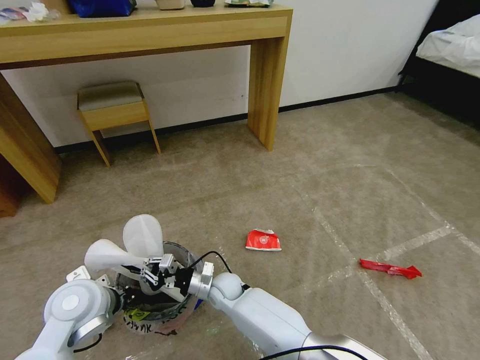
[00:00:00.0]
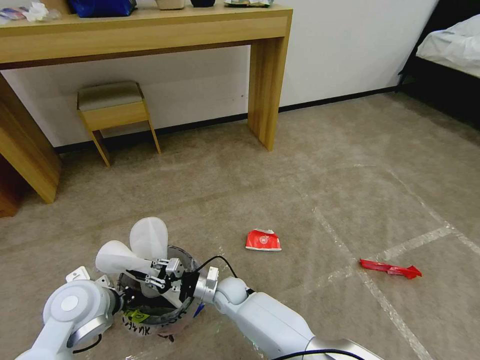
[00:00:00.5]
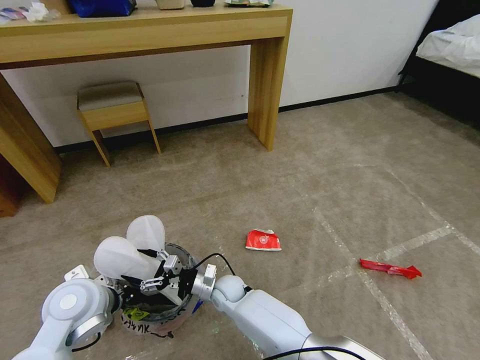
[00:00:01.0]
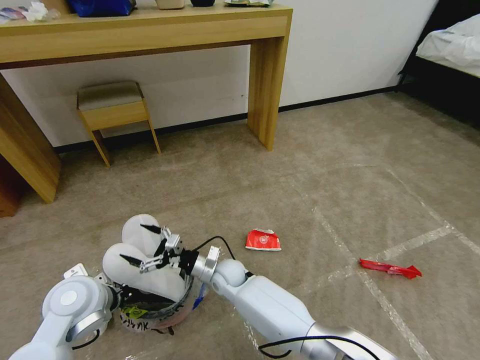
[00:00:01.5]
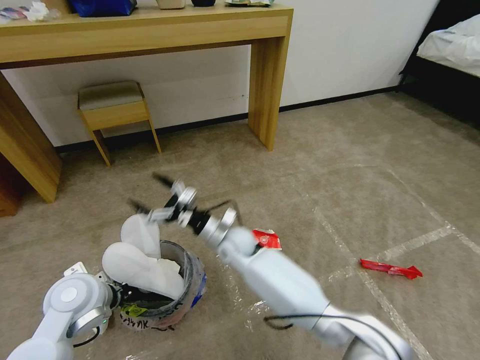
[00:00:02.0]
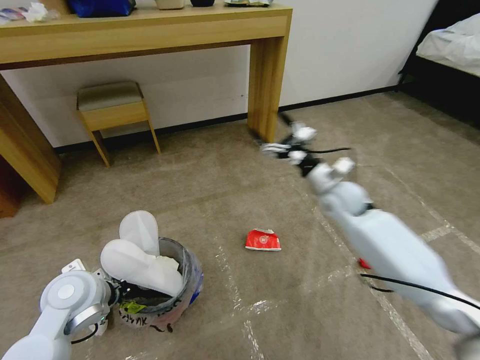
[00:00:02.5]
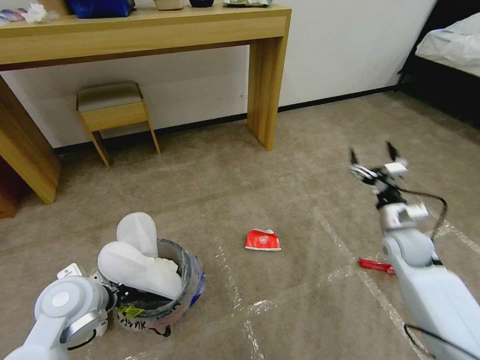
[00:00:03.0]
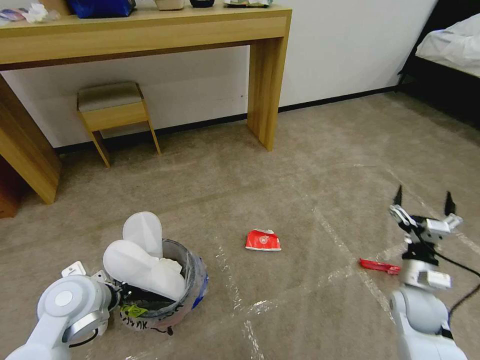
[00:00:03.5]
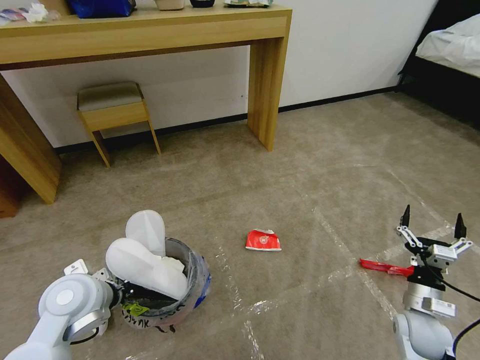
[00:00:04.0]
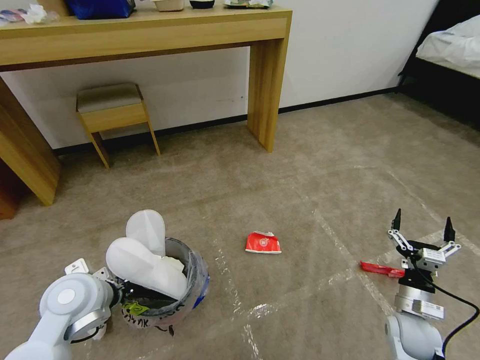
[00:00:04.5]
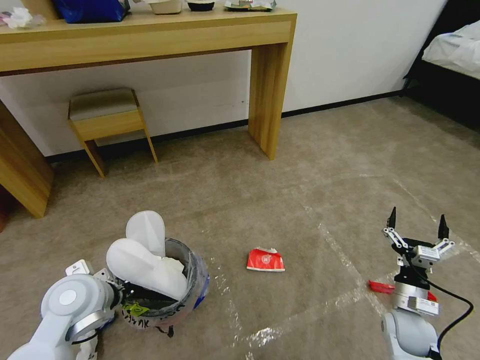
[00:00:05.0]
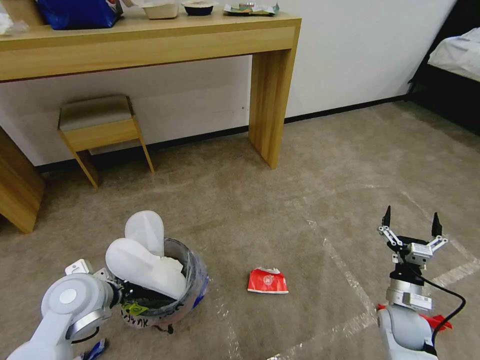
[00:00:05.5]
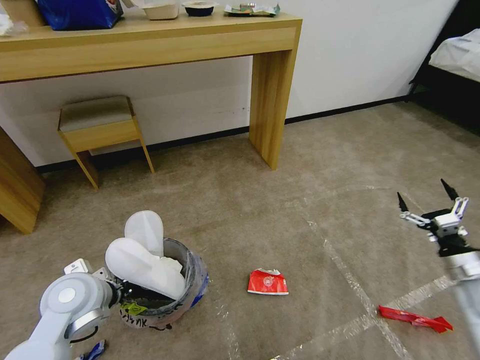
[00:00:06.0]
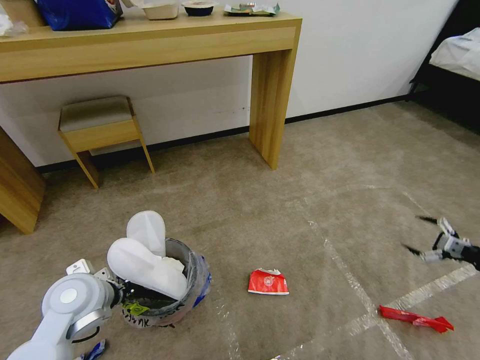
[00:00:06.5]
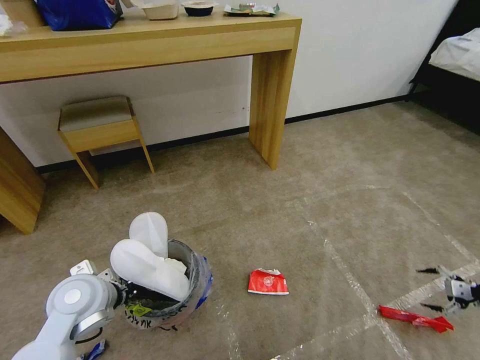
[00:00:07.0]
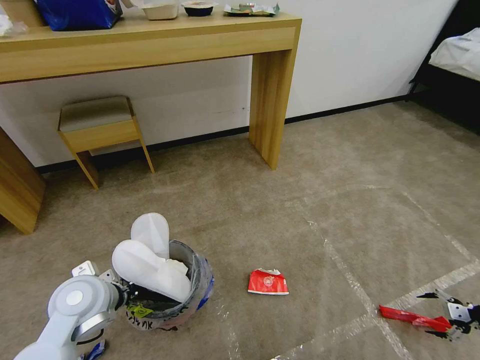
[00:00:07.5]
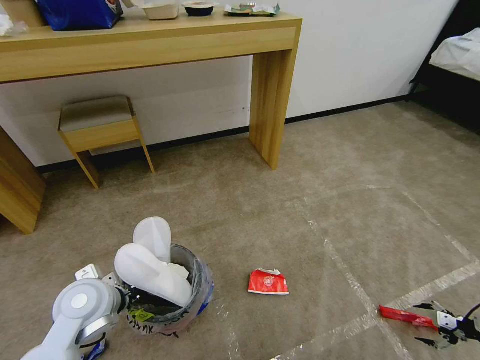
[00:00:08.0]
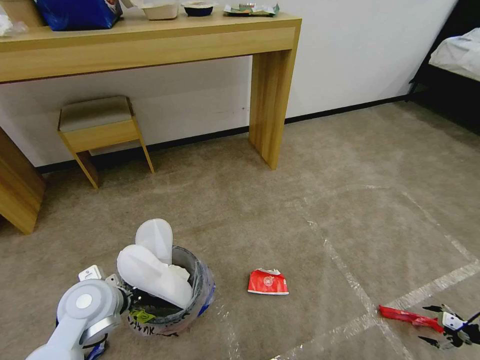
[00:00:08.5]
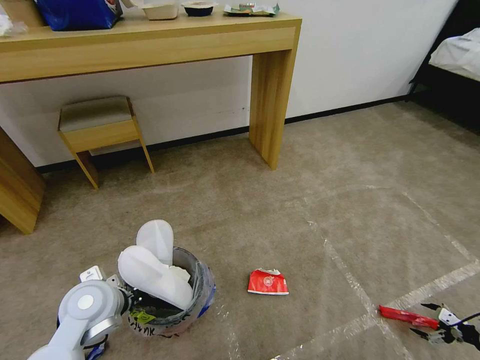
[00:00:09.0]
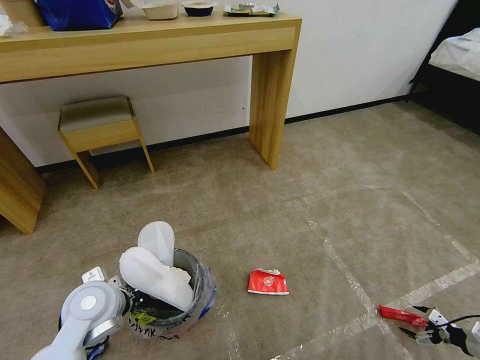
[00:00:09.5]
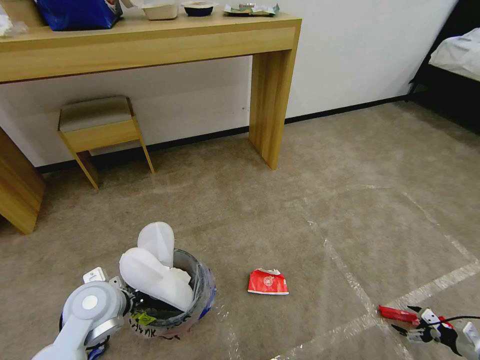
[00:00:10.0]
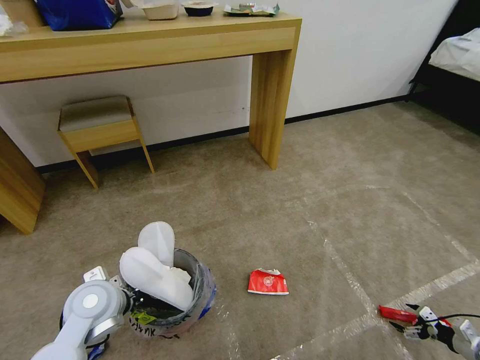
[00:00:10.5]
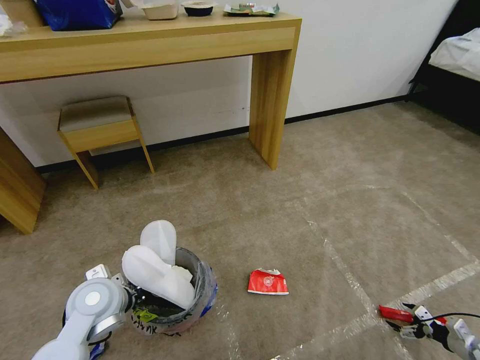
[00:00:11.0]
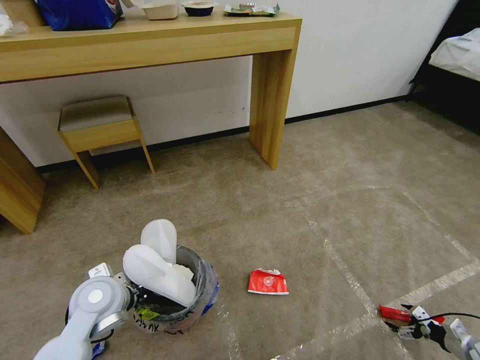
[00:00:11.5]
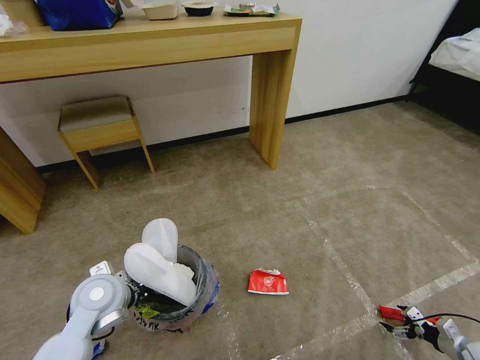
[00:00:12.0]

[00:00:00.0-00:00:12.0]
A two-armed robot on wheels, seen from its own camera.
Task of the whole recording: Pick up the trash bin and place the garbage on the floor into it.
00:00:00.0 to 00:00:02.0: The right gripper heads upward and forward, covering approximately 15 cm, and opens.
00:00:02.0 to 00:00:04.0: The right gripper shifts about 50 cm to the right and backward.
00:00:04.0 to 00:00:06.0: The right gripper travels to the right by about 15 cm.
00:00:06.0 to 00:00:08.0: The right gripper is displaced to the right and downward by about 20 cm.
00:00:08.0 to 00:00:10.0: The right gripper is displaced downward by roughly 10 cm.
00:00:10.0 to 00:00:12.0: The grippers move only a little.

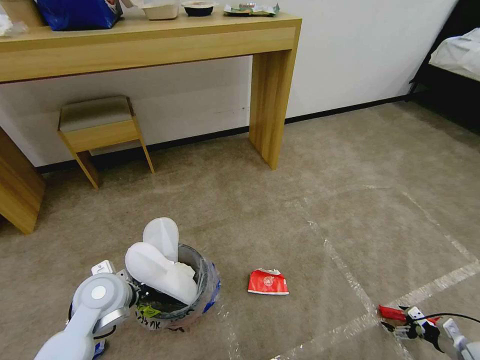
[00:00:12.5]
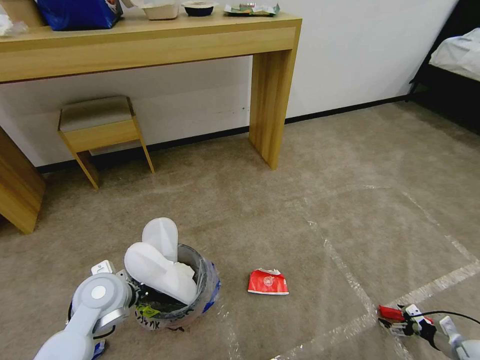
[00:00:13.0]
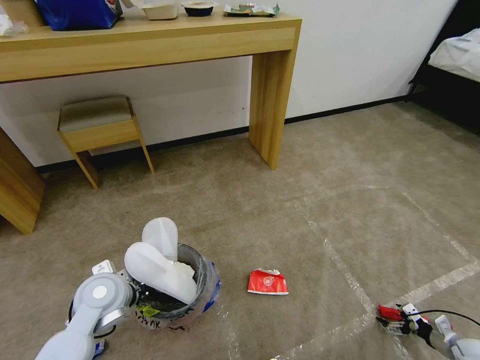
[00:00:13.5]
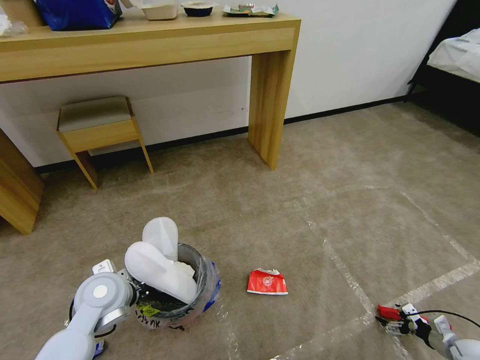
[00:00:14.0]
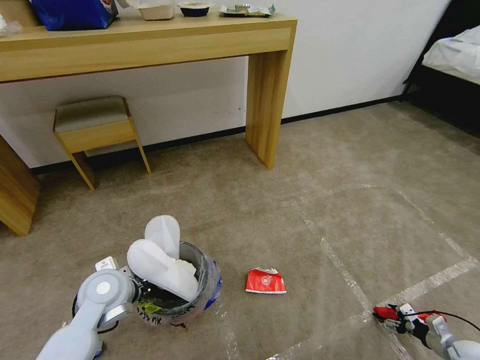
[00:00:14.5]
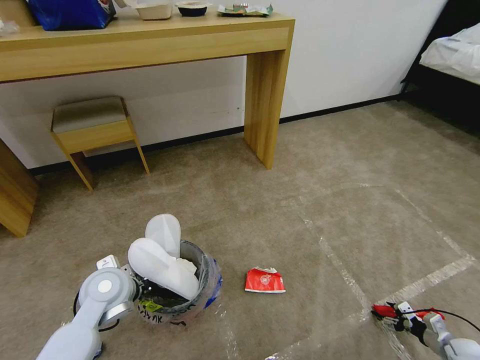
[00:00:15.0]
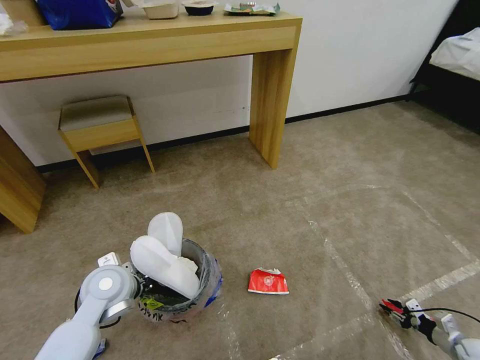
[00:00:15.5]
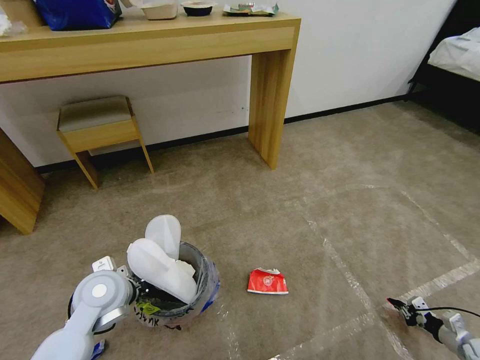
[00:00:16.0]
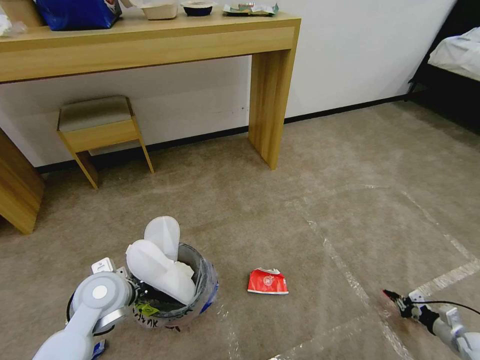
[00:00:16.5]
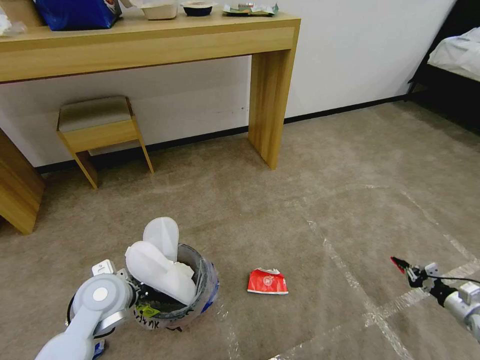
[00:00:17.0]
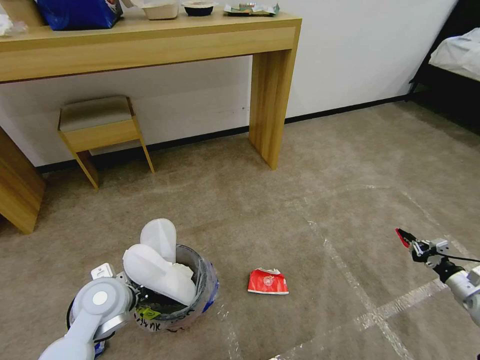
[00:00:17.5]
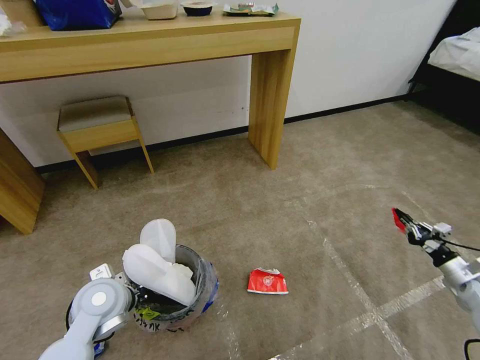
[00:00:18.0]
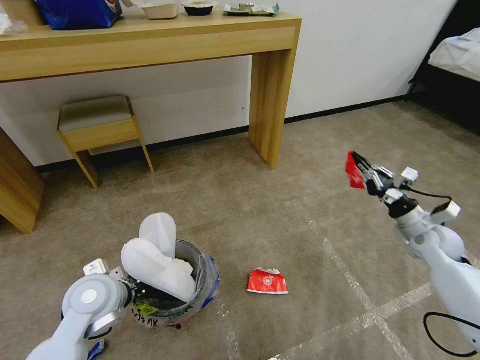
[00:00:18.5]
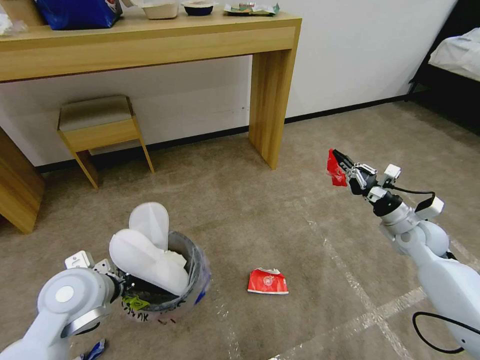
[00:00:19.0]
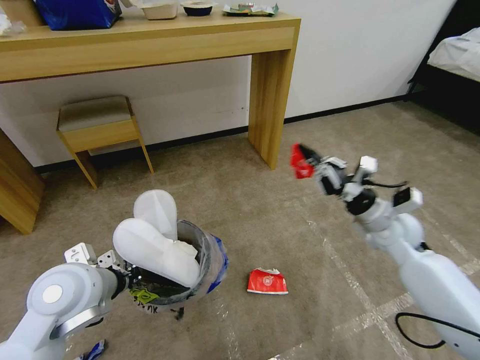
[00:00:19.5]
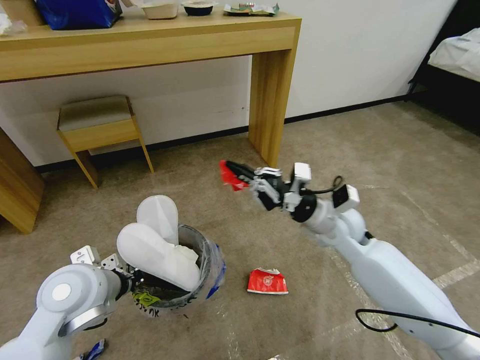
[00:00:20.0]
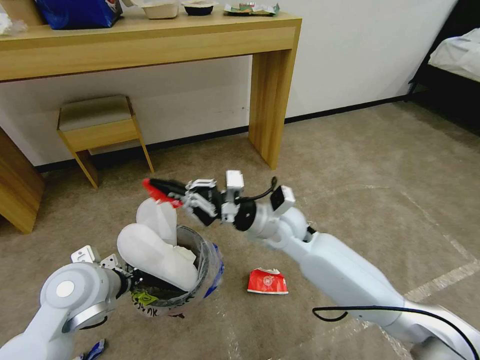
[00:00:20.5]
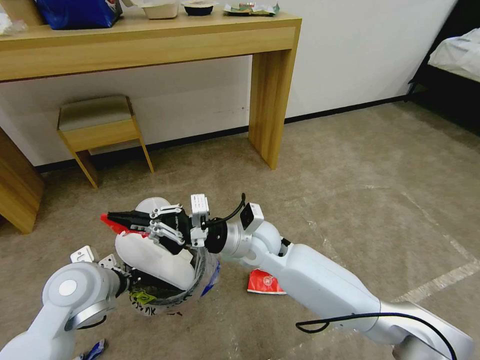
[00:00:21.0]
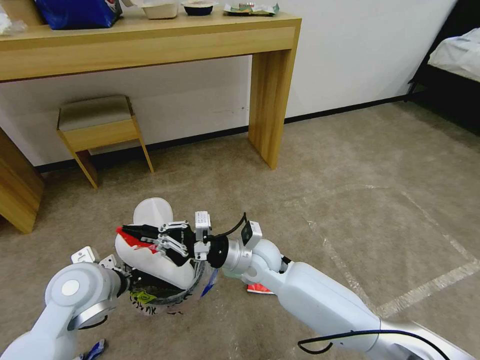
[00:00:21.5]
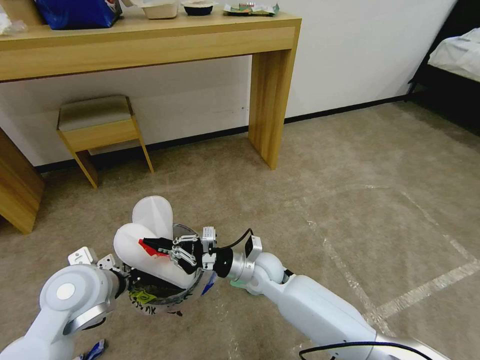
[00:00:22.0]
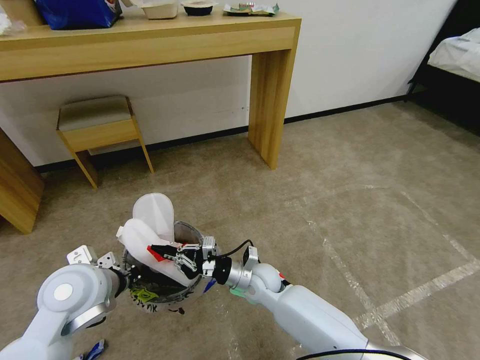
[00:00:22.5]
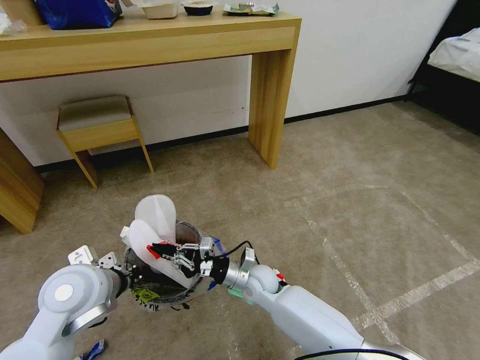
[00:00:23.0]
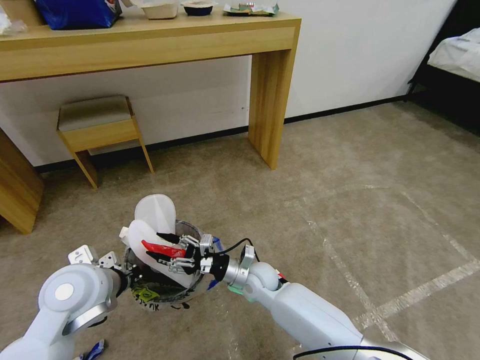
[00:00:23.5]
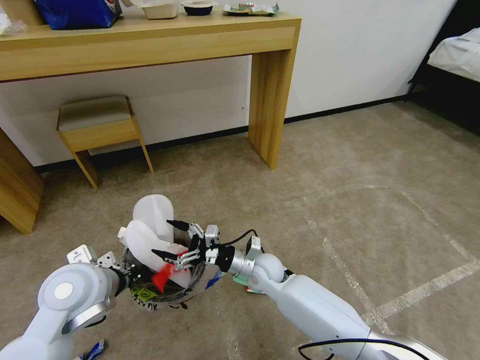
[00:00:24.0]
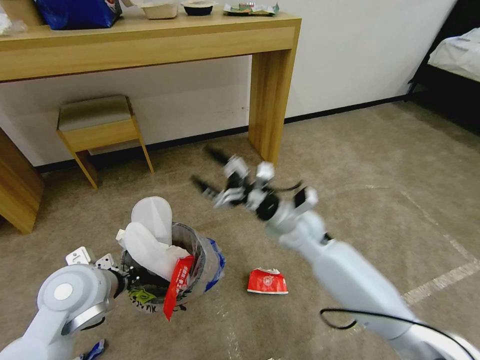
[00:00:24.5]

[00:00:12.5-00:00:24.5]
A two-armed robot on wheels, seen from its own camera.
Task of the whole recording: Pick up the trash bin and place the garbage on the floor into it.
00:00:12.5 to 00:00:14.5: The grippers move only a little.
00:00:14.5 to 00:00:16.5: The right gripper closes.
00:00:16.5 to 00:00:18.5: The right gripper travels upward, forward and to the left by about 35 cm.
00:00:18.5 to 00:00:20.5: The left gripper moves upward, about 5 cm; the right gripper moves to the left, approximately 40 cm.
00:00:20.5 to 00:00:22.5: The right gripper moves downward, some 20 cm.
00:00:22.5 to 00:00:24.5: The right gripper heads upward and to the right, covering roughly 15 cm, and opens its fingers.

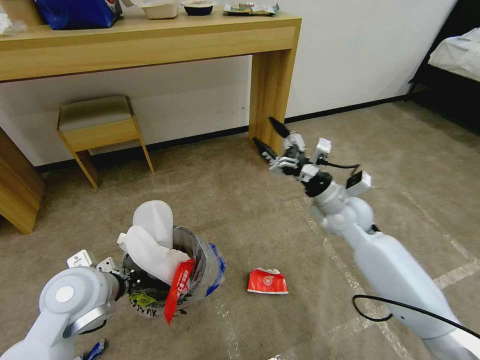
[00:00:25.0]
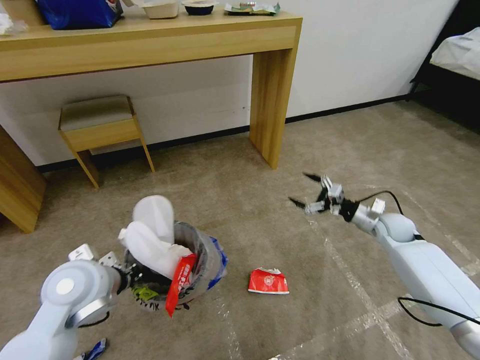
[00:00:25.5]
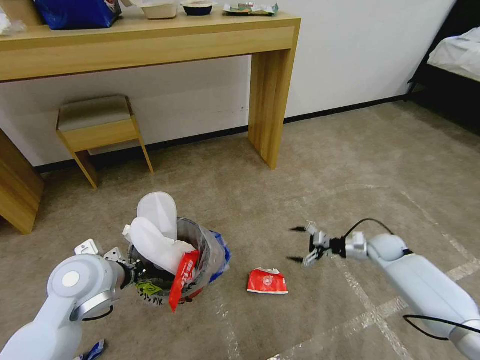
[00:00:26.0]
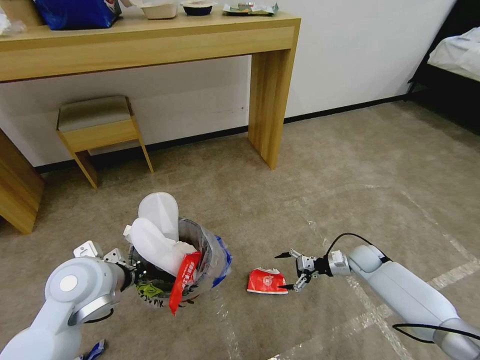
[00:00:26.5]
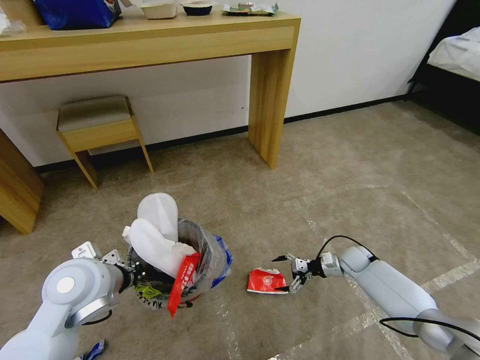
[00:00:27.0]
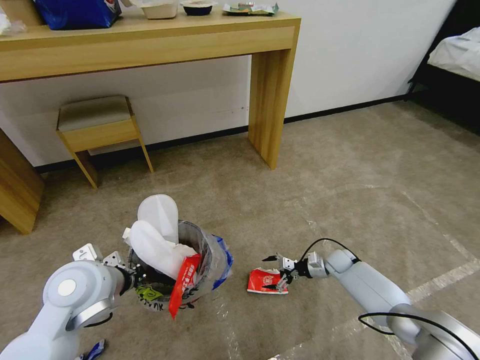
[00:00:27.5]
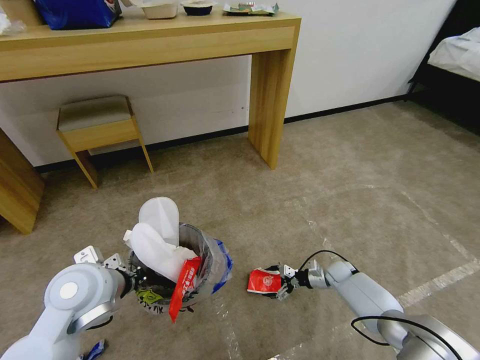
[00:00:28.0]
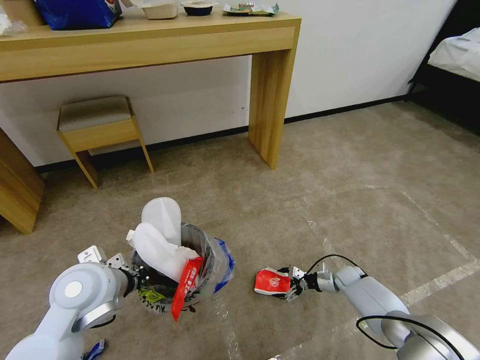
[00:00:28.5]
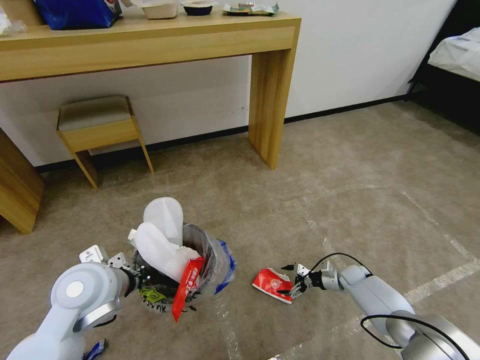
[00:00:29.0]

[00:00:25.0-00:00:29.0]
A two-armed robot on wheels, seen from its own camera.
Task of the whole recording: Pick up the trash bin and place the garbage on the floor into it.
00:00:25.0 to 00:00:27.0: The right gripper moves downward and to the right, some 30 cm.
00:00:27.0 to 00:00:29.0: The right gripper travels downward by approximately 5 cm.
